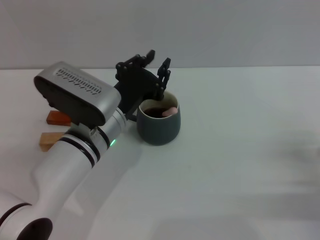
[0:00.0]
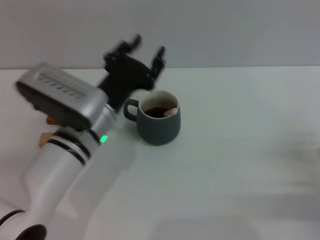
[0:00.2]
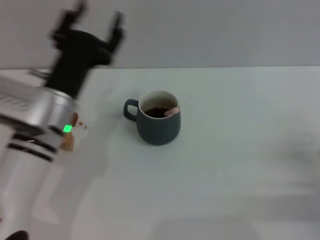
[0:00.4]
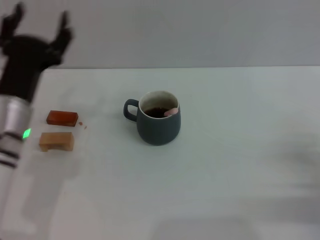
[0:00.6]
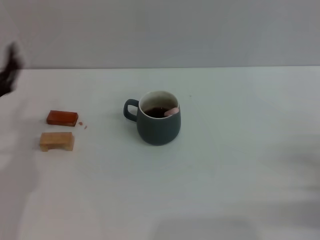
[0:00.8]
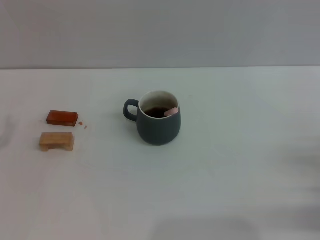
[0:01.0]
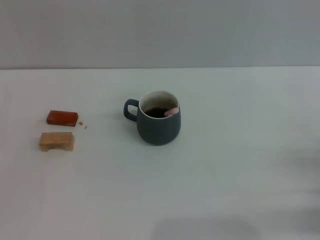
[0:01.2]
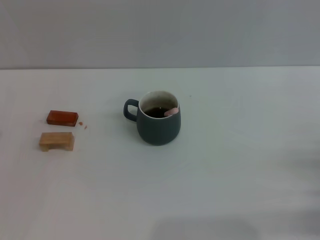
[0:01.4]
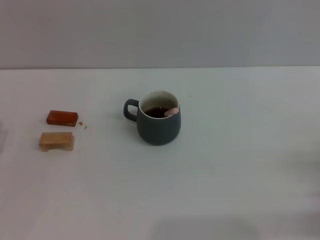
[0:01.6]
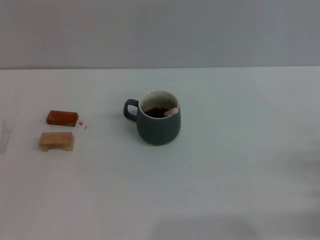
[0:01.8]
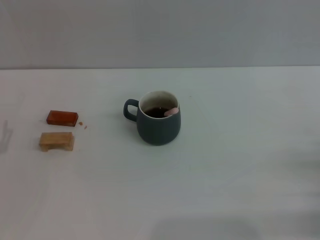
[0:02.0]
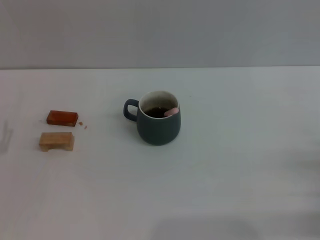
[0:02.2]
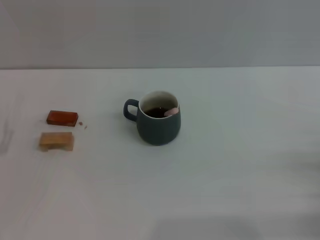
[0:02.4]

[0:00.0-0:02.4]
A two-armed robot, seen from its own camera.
Task of the whole recording: Move the grey cup to the center, lift the pink spoon, stir it three times in the cup, and put the spoon into the cup.
0:00.0 to 0:01.2: The left gripper is displaced to the left and backward by about 25 cm, and opens.
